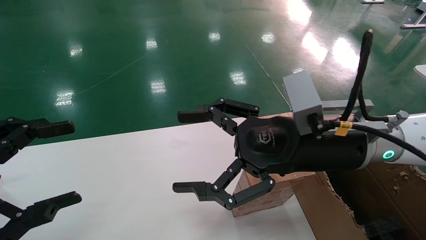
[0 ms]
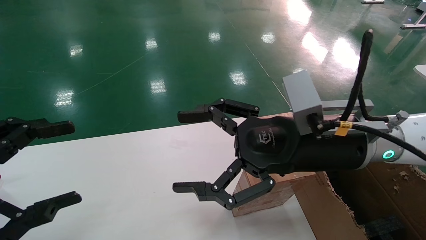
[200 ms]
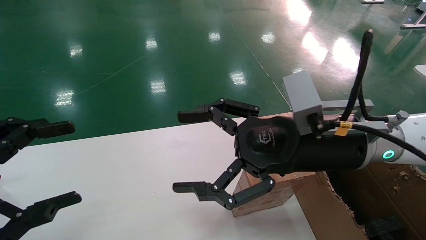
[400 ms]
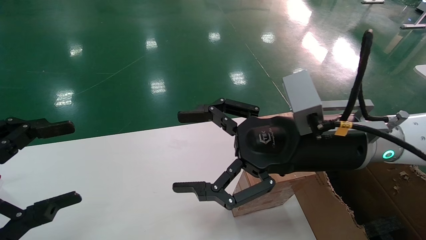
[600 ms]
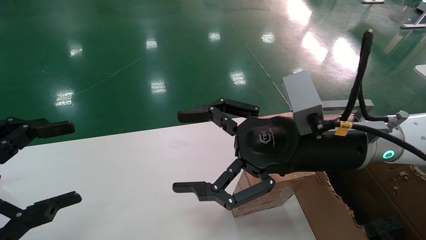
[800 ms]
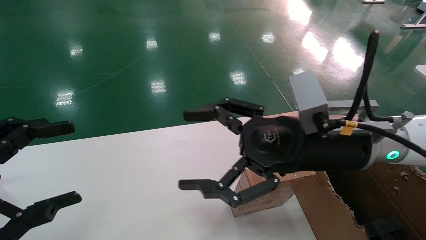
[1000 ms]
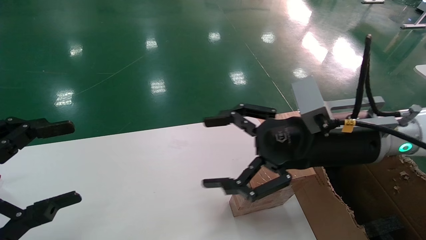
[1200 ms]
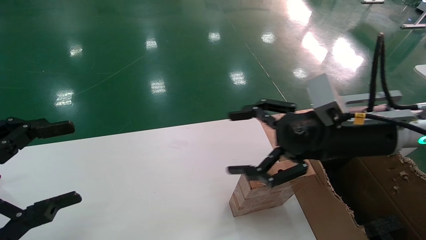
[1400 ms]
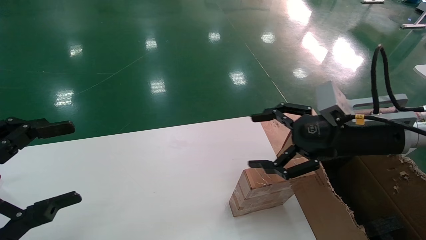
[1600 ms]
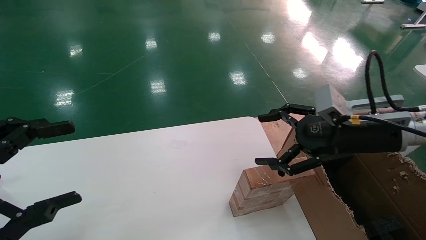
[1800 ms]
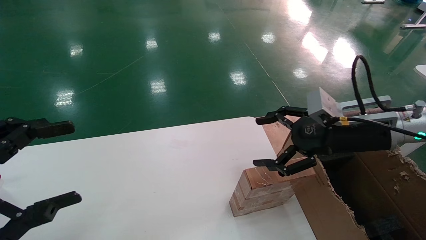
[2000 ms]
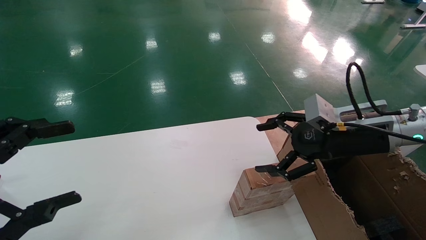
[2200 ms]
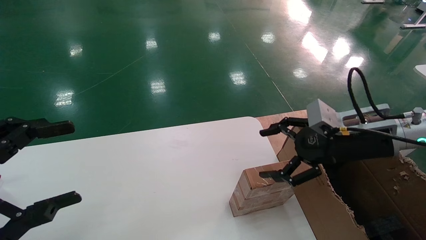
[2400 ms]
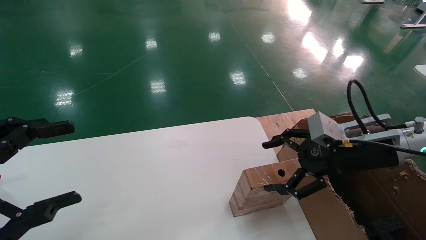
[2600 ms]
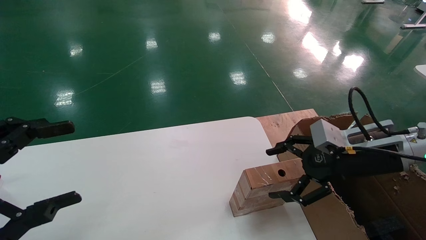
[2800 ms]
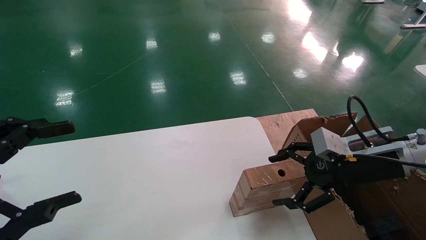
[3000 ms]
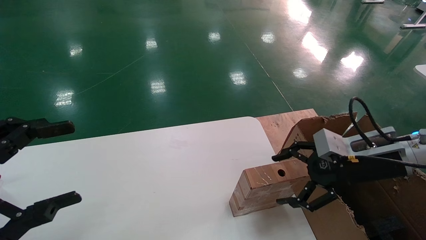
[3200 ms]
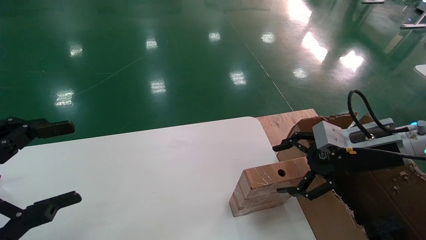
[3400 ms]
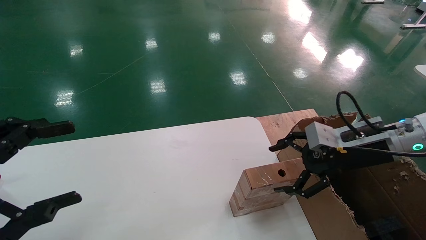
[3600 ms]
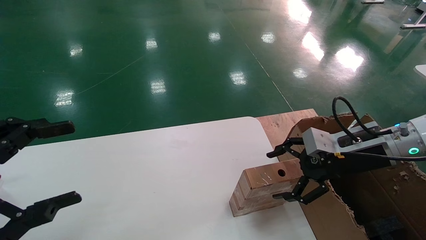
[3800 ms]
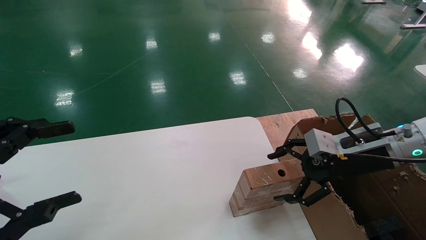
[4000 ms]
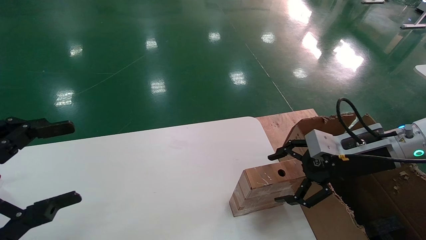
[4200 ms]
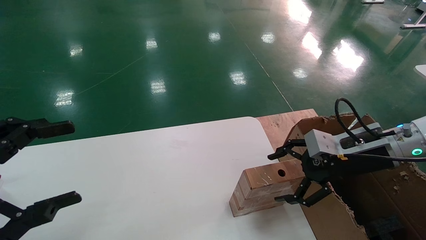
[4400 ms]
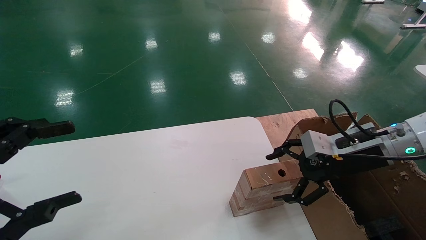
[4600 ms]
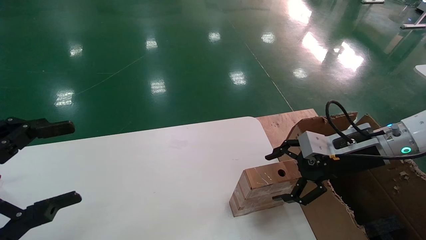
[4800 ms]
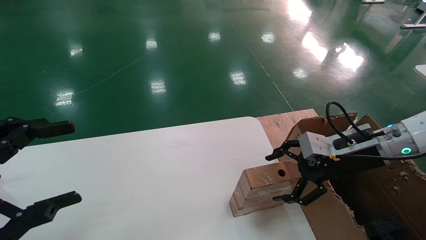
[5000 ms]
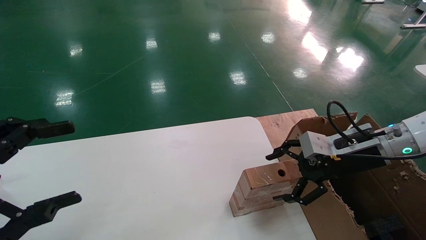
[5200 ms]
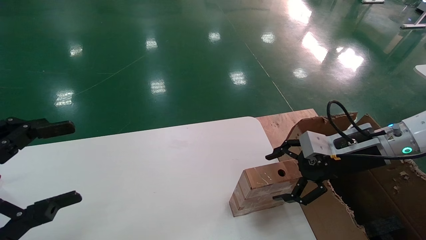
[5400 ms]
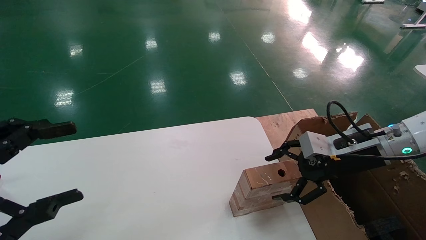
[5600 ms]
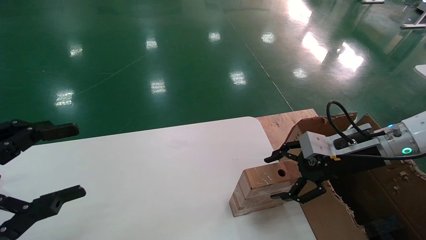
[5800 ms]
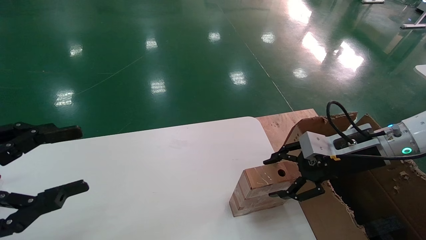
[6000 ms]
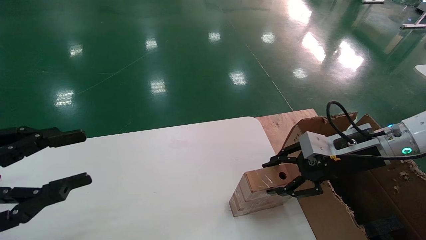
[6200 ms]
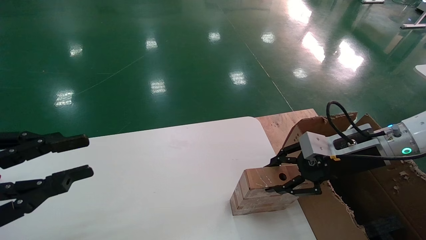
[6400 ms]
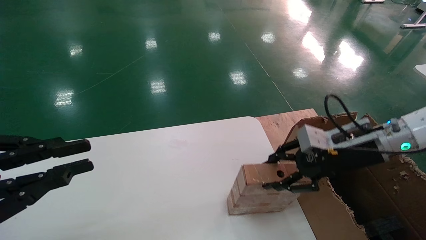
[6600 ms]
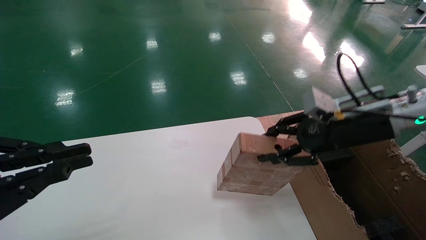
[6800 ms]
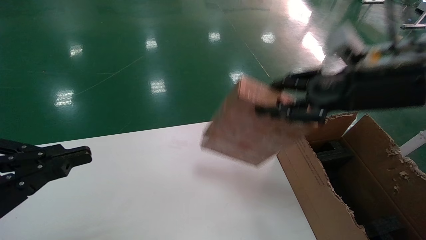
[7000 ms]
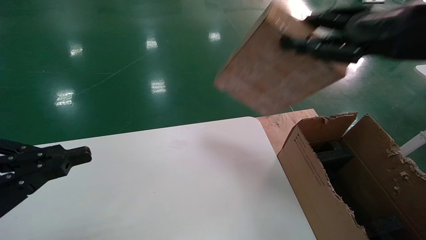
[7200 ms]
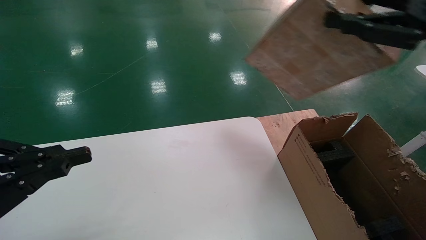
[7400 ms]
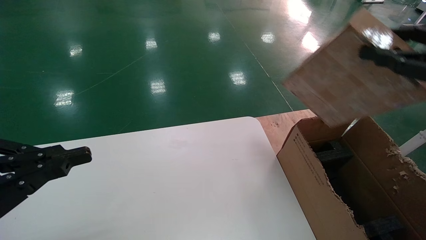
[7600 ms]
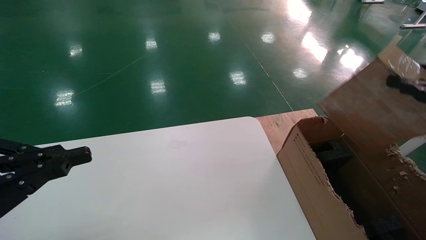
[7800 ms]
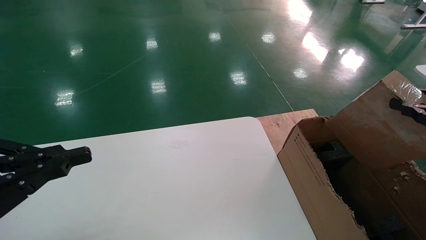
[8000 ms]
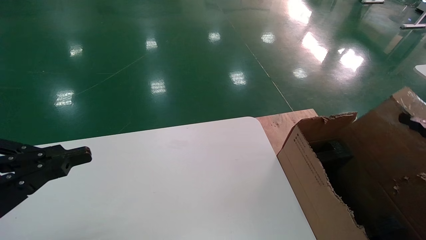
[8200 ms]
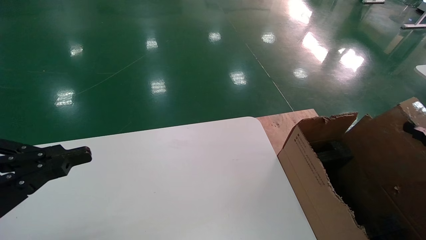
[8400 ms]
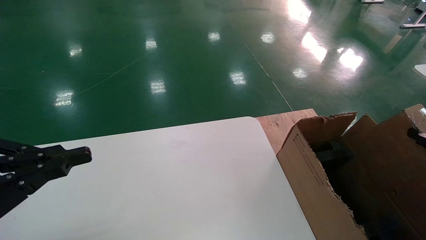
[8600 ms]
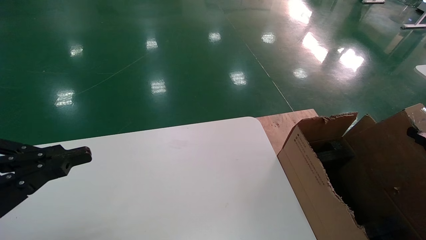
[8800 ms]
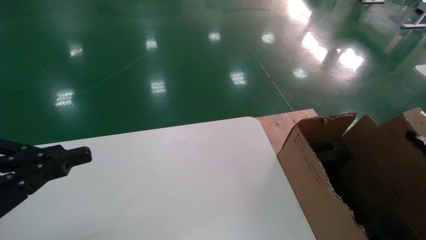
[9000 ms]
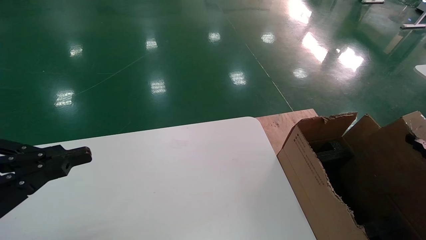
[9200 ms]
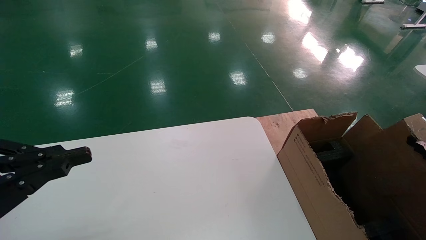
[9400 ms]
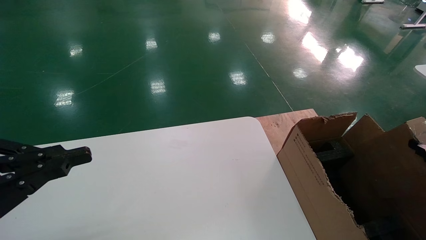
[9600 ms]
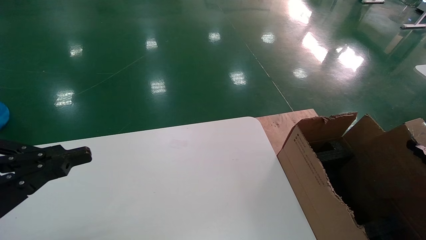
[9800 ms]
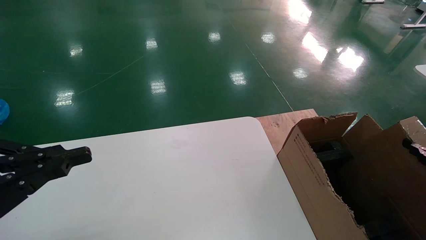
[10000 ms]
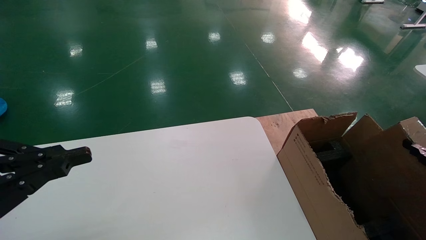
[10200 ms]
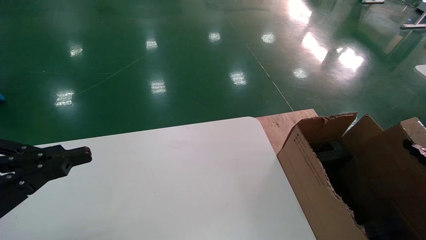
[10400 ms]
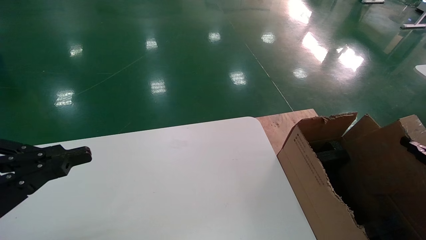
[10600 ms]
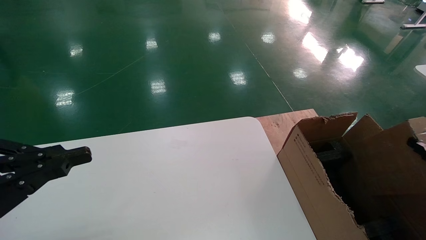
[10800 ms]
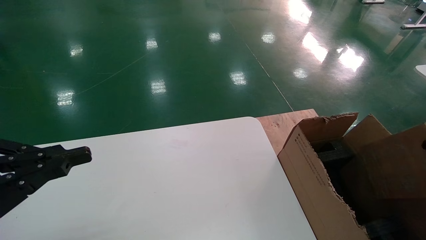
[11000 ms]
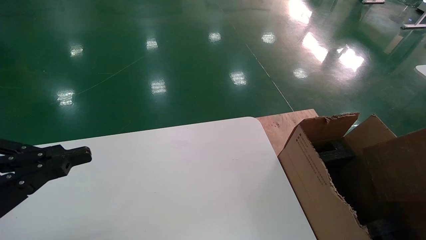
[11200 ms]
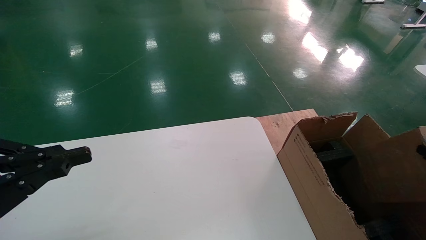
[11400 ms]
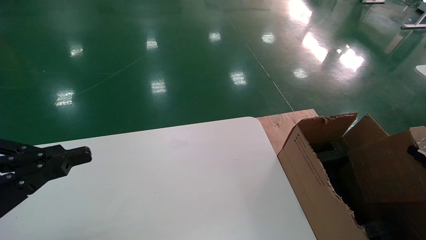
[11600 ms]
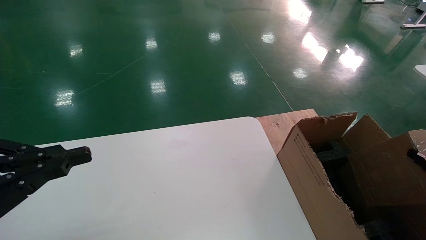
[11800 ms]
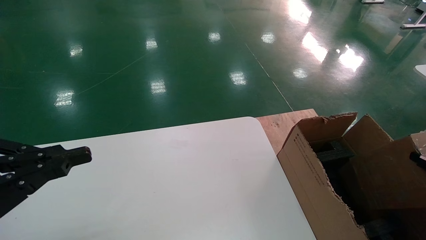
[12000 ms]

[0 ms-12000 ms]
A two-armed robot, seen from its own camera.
Task of the whole recording: put the box on the table into the big box.
Step, 1400 ms to 6600 ms: Pick up the mouse and the power cord paper box.
0 ms to 1600 ms: The right gripper moves to the right, roughly 10 cm.
1600 ms to 3000 ms: The right gripper shifts roughly 5 cm downward.
3000 ms to 4400 ms: The grippers move only a little.
4400 ms to 6000 ms: Both grippers stay put.
6000 ms to 7600 ms: The left gripper closes up. The right gripper is displaced backward, upward and to the right by approximately 25 cm, and closes up.
7600 ms to 9000 ms: The right gripper moves downward and to the right, roughly 20 cm.

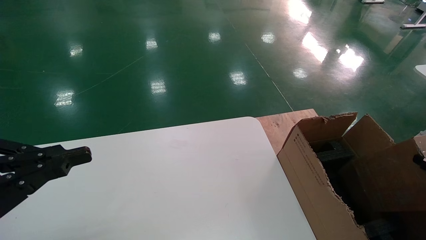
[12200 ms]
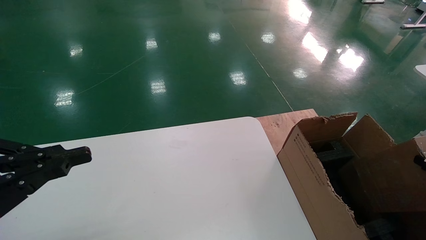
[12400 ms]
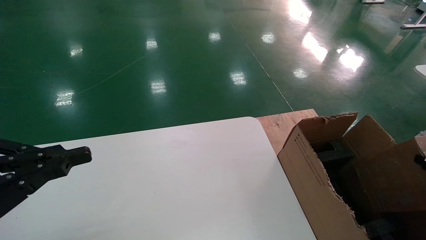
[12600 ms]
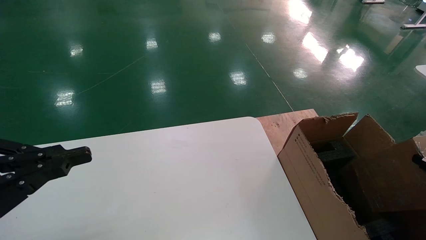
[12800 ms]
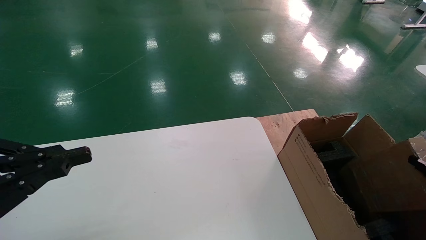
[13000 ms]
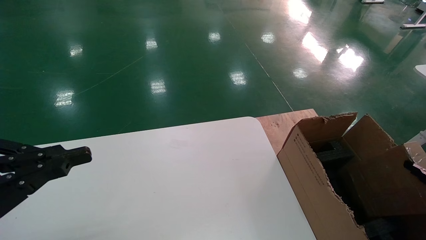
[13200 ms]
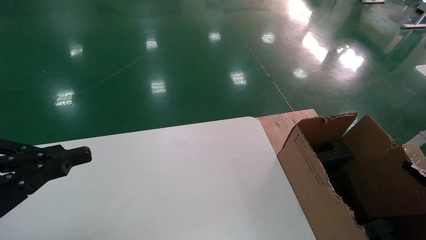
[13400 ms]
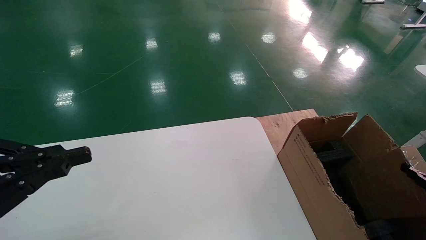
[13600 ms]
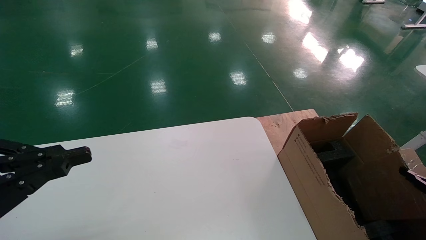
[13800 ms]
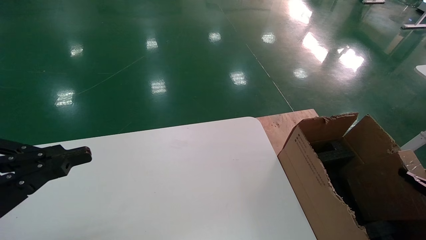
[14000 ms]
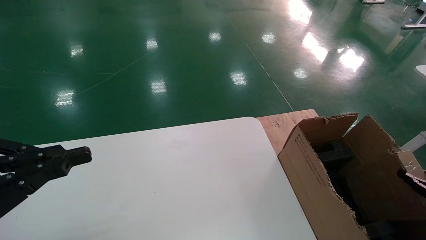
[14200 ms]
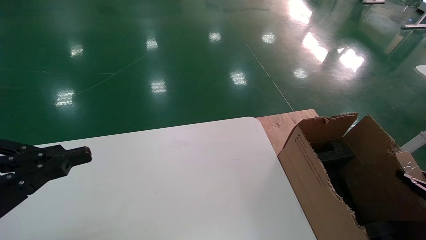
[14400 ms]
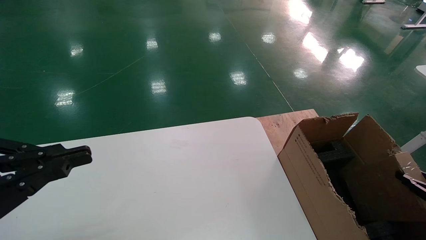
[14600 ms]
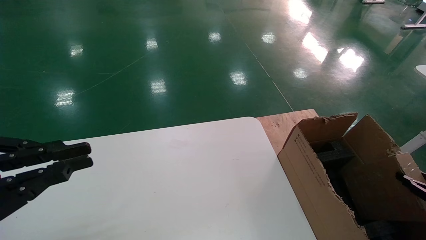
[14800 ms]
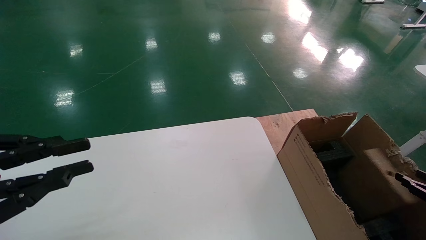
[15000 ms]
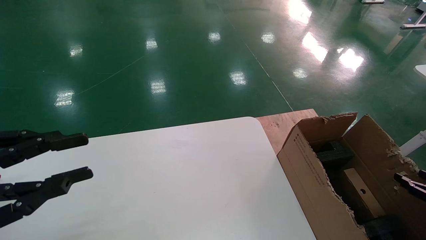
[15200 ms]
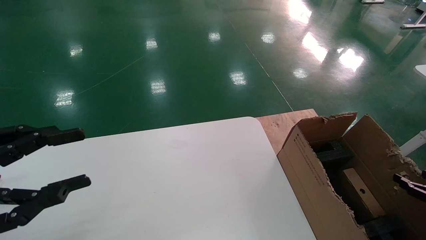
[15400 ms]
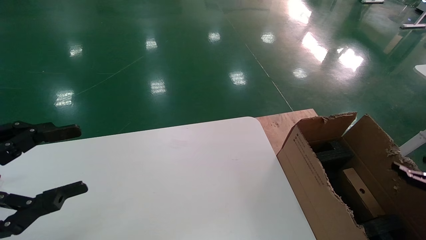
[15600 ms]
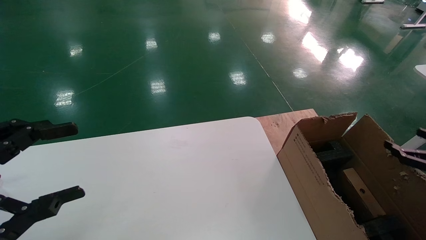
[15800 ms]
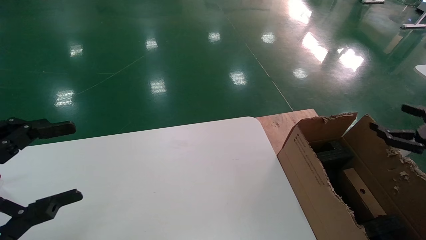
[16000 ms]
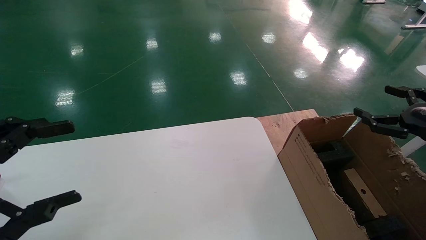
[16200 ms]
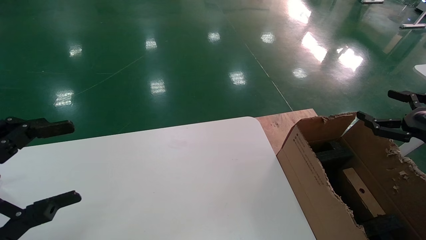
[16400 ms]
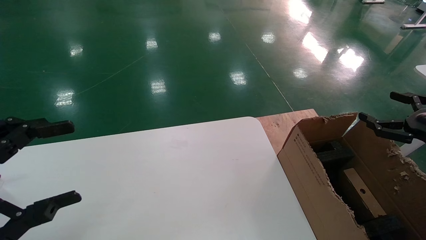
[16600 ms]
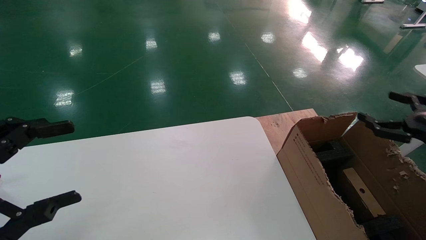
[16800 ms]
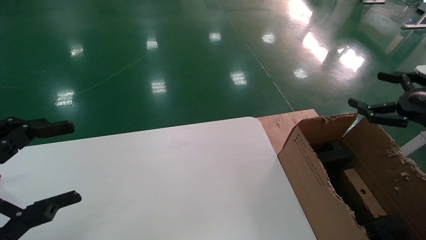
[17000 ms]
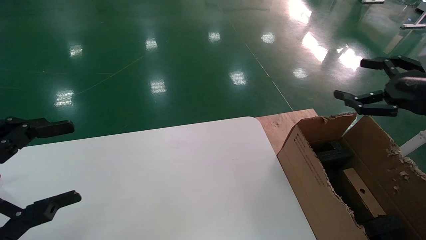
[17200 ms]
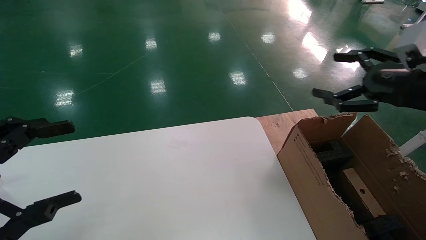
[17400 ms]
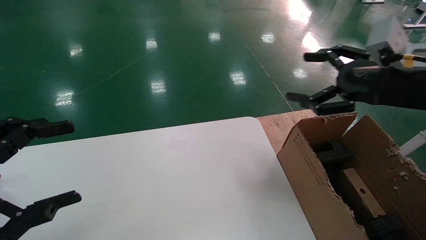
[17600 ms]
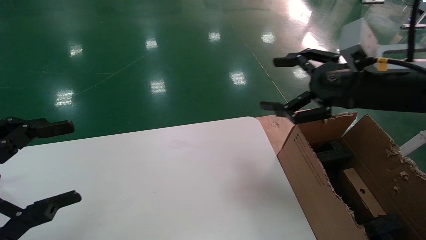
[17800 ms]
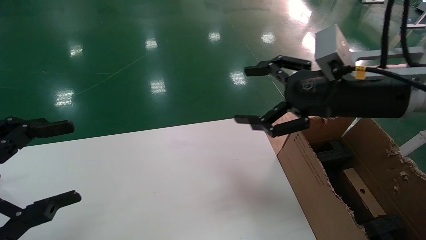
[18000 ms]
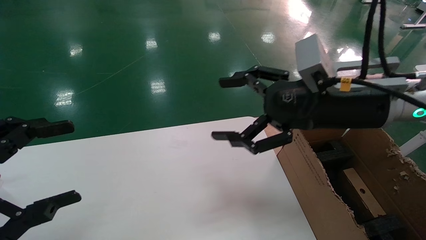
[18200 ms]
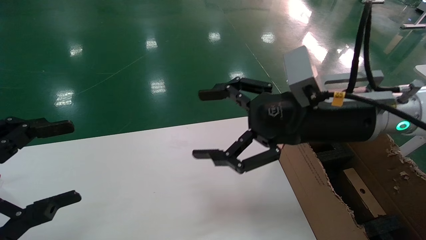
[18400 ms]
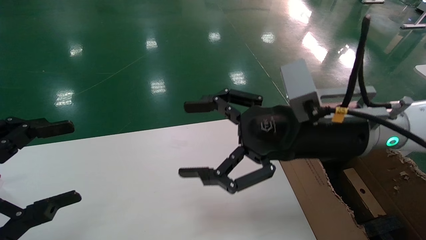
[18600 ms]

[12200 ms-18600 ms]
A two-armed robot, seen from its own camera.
Task of the whole recording: put the box on the table into the big box.
Step, 12200 ms to 15200 ms: Place the mouse and the power cord paper box into the container.
12200 ms to 13800 ms: The grippers move only a little.
13800 ms to 15400 ms: The right gripper opens up. Meanwhile the left gripper opens up.
15400 ms to 17000 ms: The right gripper moves upward and to the left, approximately 20 cm, and opens up; the left gripper opens up.
17000 ms to 18600 ms: The right gripper shifts some 25 cm to the left.
